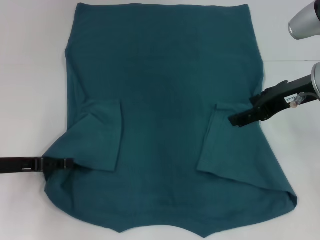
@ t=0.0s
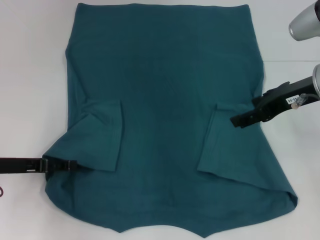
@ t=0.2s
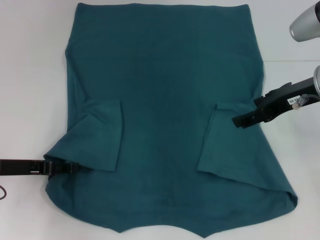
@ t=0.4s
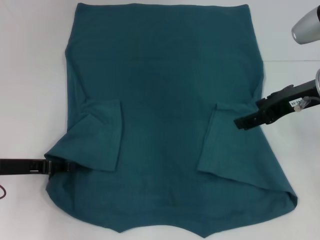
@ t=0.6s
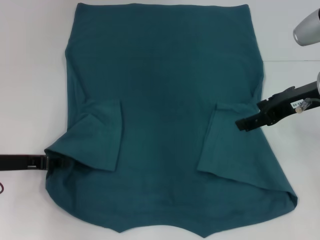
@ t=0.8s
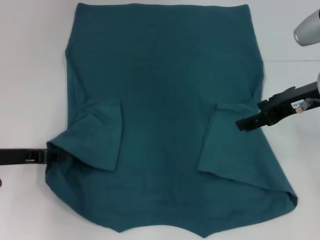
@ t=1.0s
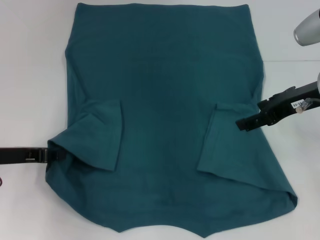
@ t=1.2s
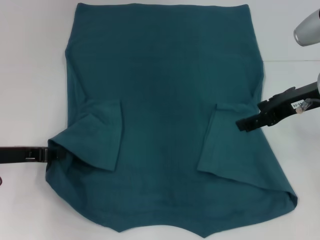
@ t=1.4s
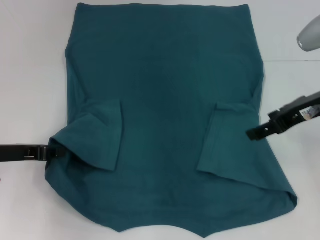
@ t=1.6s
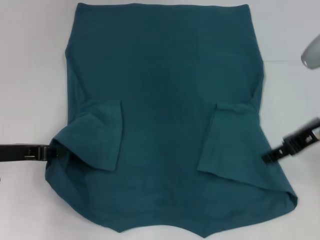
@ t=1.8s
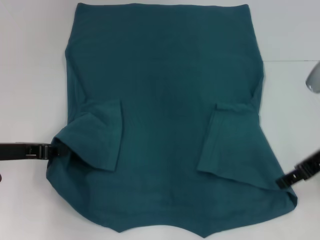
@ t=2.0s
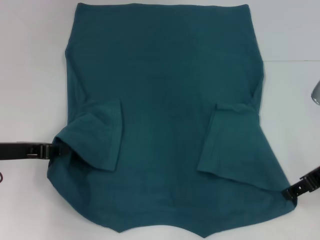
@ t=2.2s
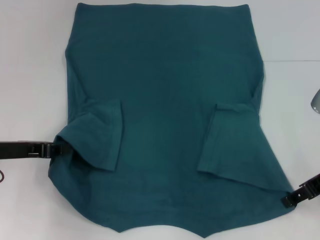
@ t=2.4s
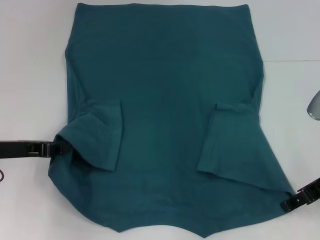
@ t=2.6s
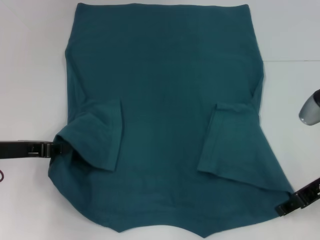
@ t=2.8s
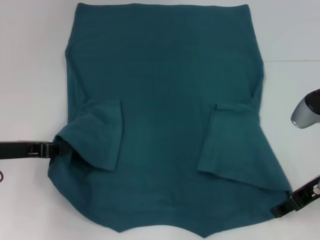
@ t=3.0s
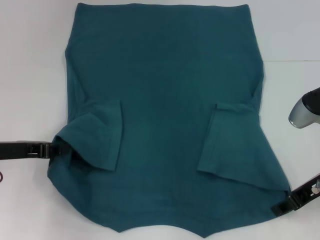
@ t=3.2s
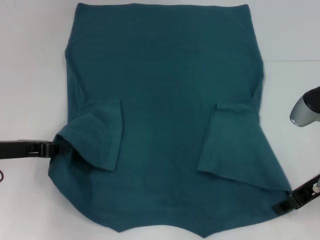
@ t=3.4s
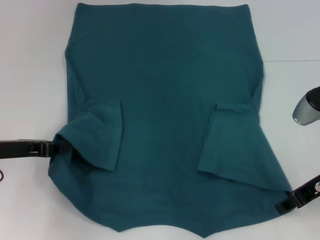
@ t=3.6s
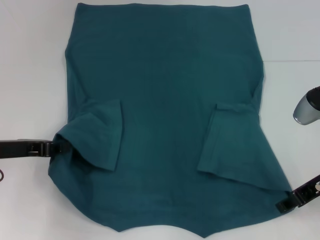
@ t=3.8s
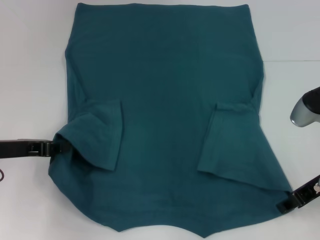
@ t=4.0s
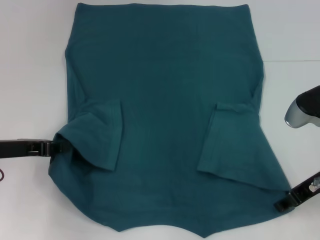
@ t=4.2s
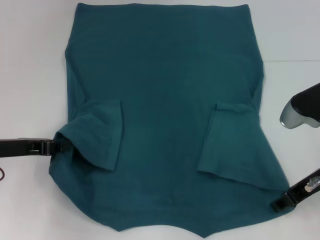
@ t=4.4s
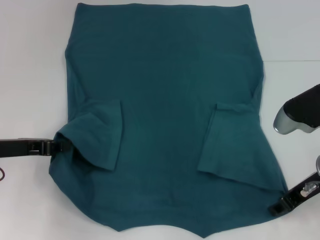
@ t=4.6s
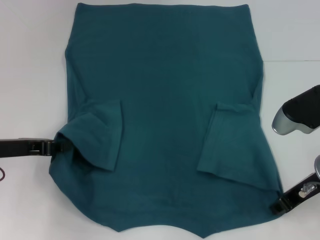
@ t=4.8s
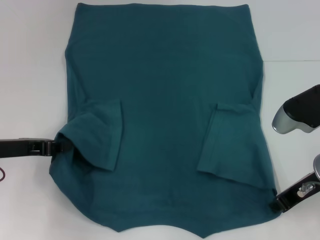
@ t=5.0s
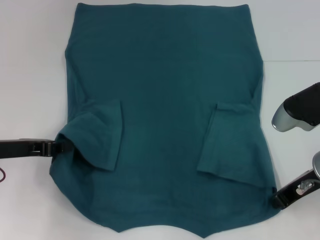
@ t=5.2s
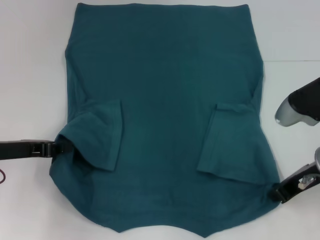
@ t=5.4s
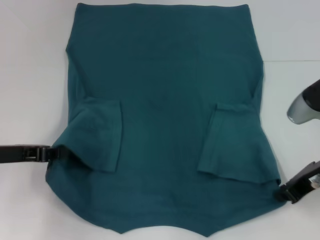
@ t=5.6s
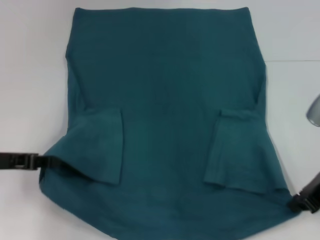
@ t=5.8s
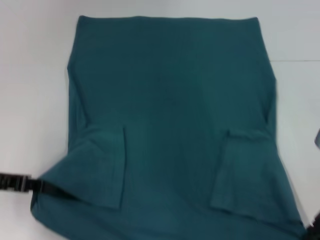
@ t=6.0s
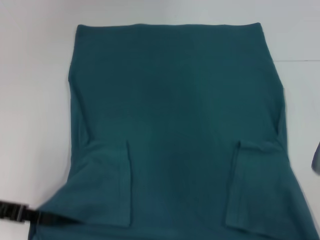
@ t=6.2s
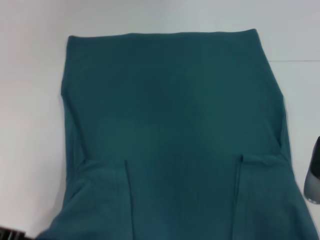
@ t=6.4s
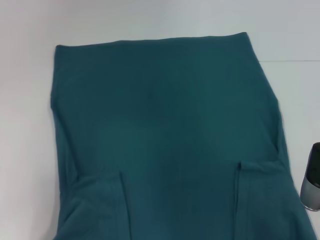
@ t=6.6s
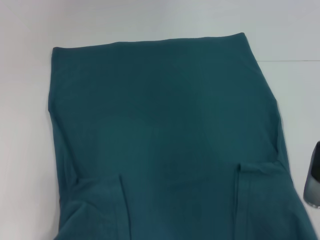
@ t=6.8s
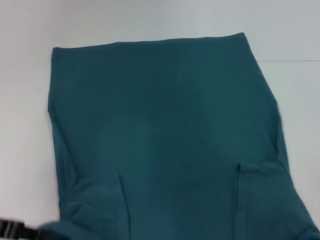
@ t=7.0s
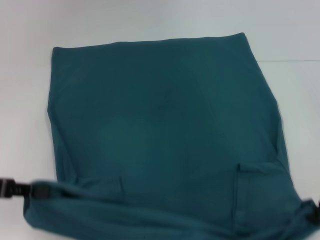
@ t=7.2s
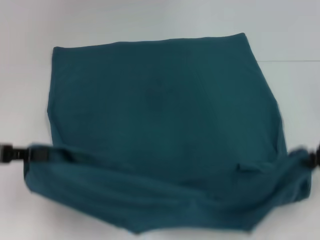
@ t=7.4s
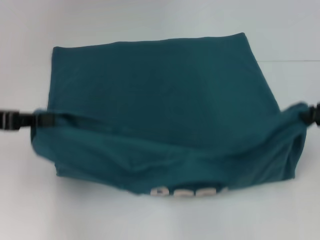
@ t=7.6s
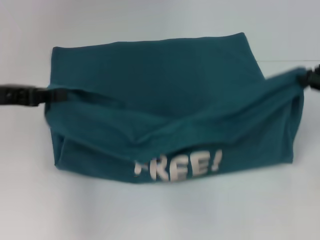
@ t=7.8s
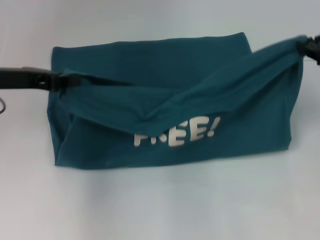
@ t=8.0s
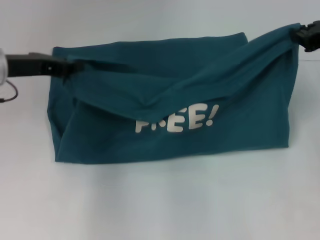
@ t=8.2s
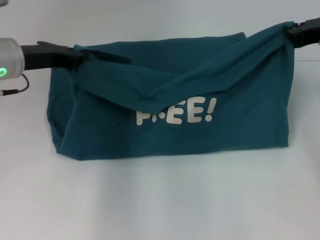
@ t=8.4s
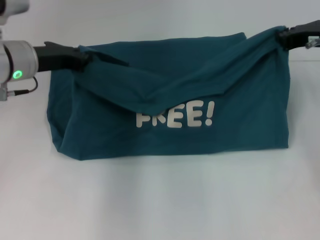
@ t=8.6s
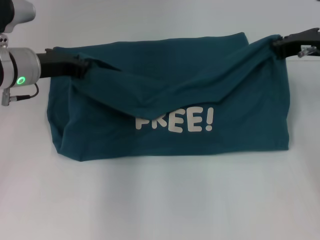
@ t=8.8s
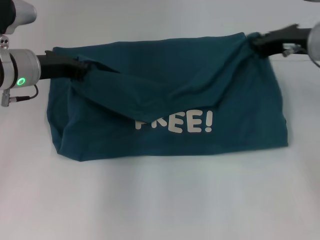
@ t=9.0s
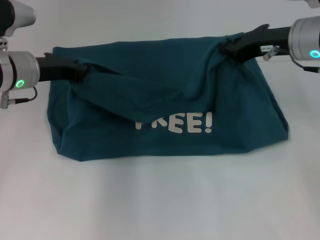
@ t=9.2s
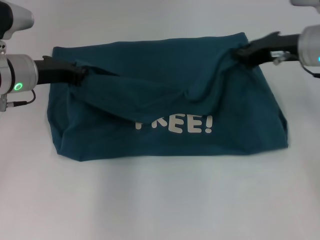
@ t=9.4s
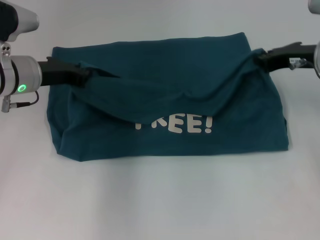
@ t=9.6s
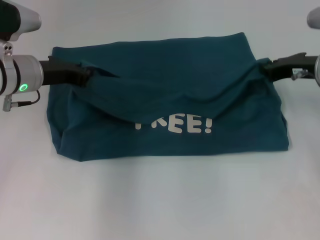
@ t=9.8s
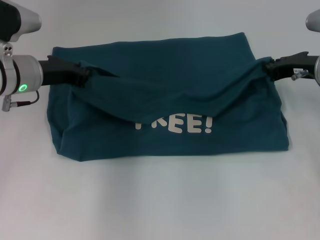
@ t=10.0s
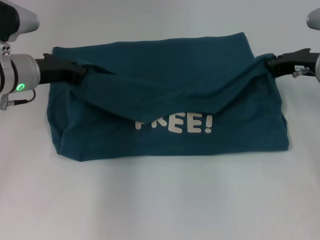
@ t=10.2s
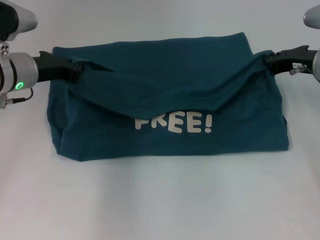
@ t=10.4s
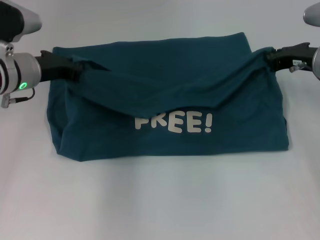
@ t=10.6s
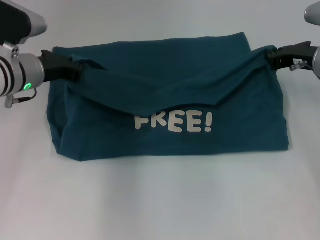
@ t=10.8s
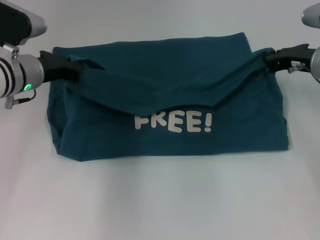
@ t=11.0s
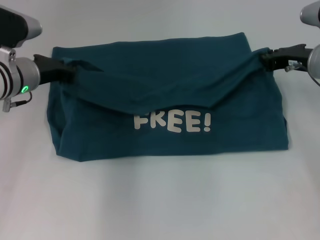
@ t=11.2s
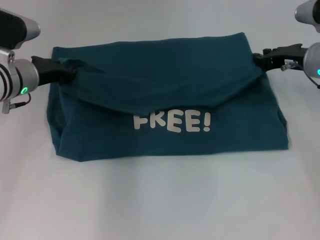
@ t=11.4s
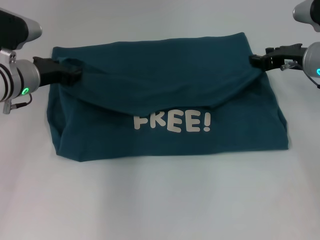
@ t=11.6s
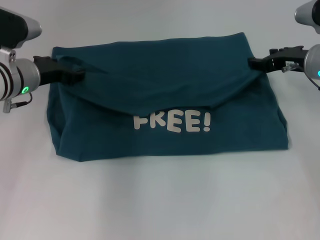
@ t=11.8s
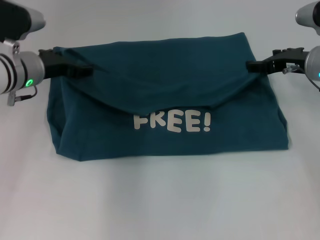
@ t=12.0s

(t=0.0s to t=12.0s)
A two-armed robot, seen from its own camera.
Step, t=0.0s - t=2.0s: Grab the bottom left corner with your left hand.
Step, t=2.2s - t=5.2s: Grab the bottom right corner with your right hand.
t=0.0s - t=1.6s: The left gripper closes.
t=1.6s - t=3.0s: The right gripper shifts some 10 cm downward and backward.
t=3.0s - t=4.4s: The two grippers keep their place.
t=4.4s - t=6.0s: The right gripper closes.
t=6.0s - t=7.6s: The two grippers go some 10 cm upward.
t=7.6s - t=9.0s: The left gripper is displaced forward and to the right by approximately 15 cm, while the right gripper heads forward and to the left, covering roughly 10 cm.
t=9.0s - t=10.4s: The right gripper changes place by some 5 cm.
t=10.4s - t=12.0s: The left gripper opens its fingers. Meanwhile the right gripper opens up.

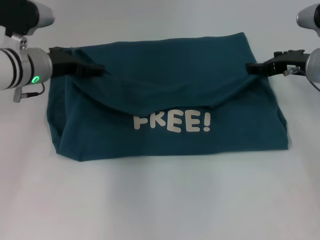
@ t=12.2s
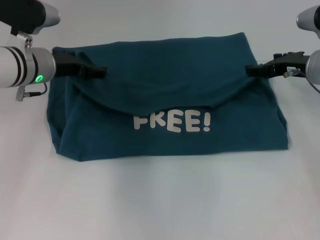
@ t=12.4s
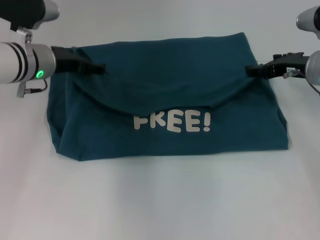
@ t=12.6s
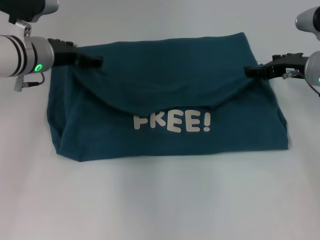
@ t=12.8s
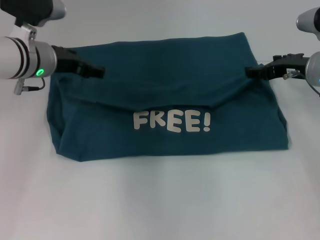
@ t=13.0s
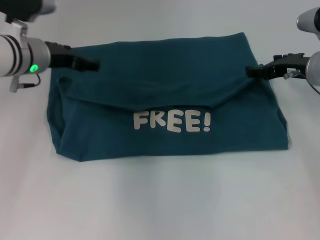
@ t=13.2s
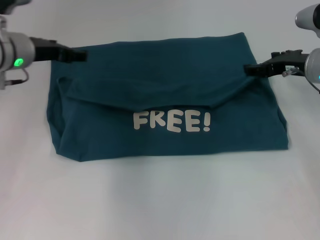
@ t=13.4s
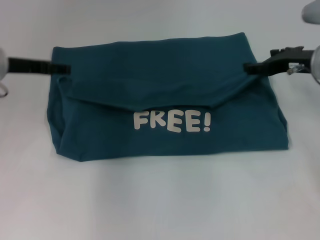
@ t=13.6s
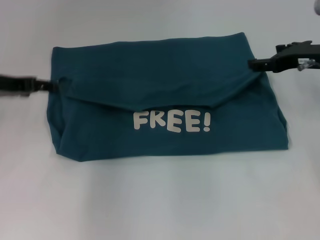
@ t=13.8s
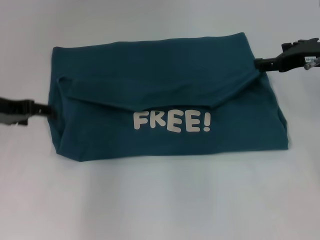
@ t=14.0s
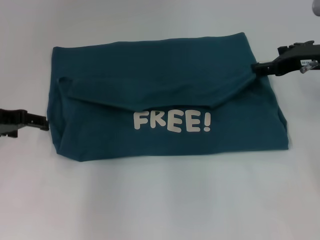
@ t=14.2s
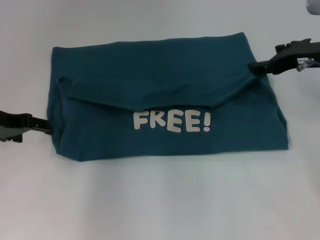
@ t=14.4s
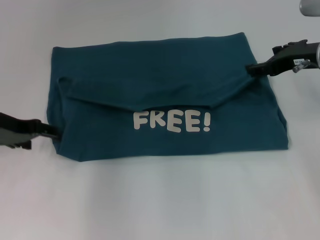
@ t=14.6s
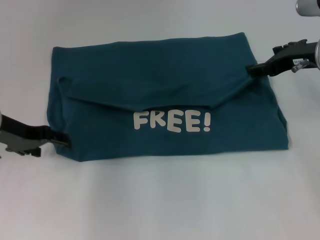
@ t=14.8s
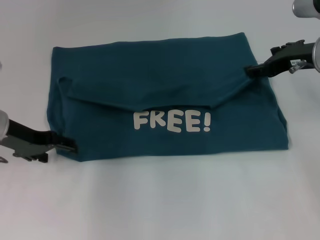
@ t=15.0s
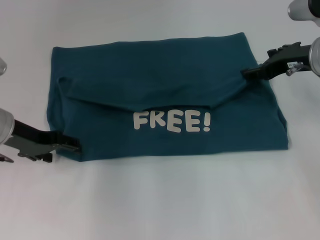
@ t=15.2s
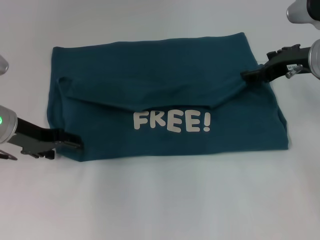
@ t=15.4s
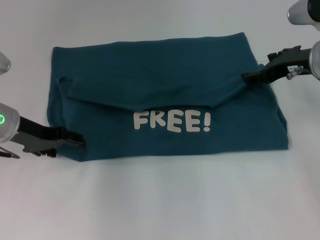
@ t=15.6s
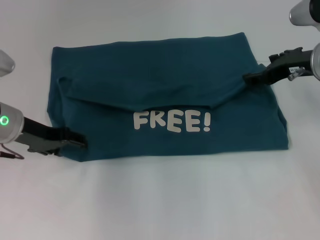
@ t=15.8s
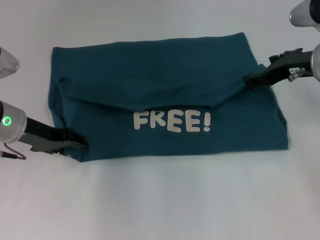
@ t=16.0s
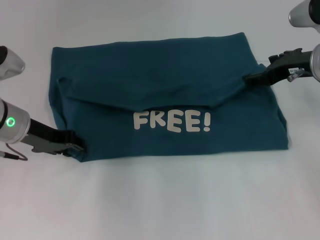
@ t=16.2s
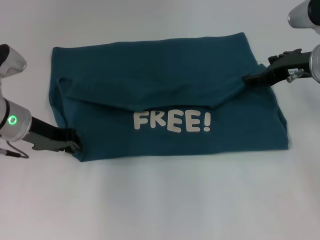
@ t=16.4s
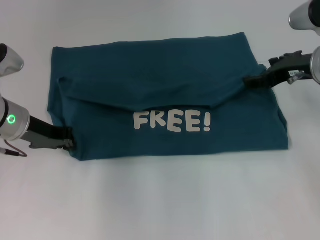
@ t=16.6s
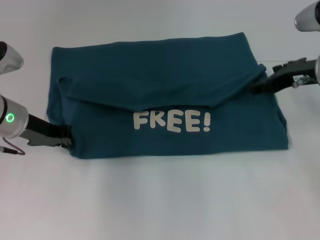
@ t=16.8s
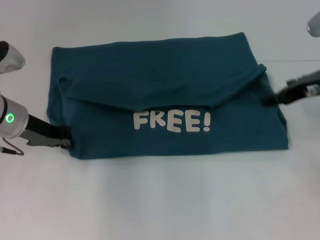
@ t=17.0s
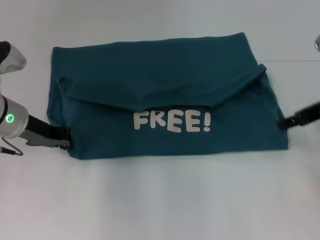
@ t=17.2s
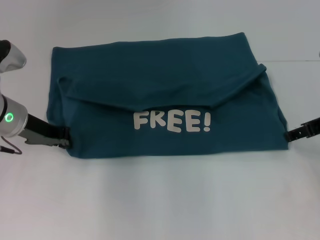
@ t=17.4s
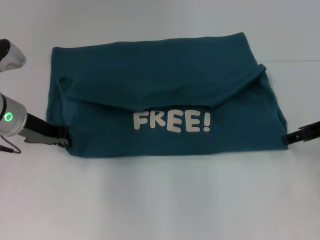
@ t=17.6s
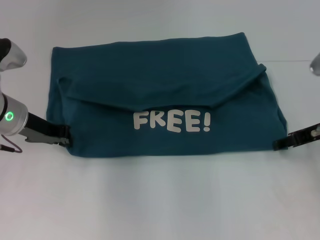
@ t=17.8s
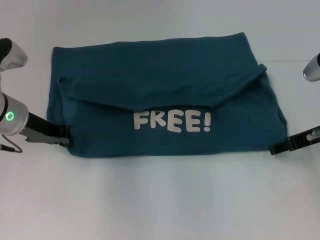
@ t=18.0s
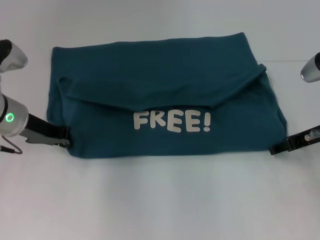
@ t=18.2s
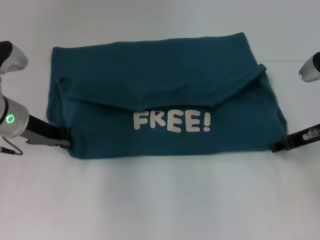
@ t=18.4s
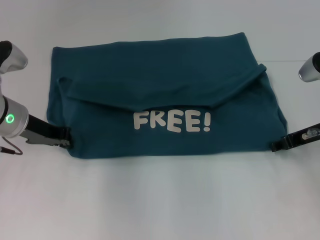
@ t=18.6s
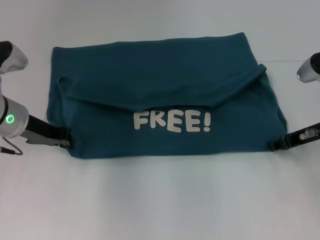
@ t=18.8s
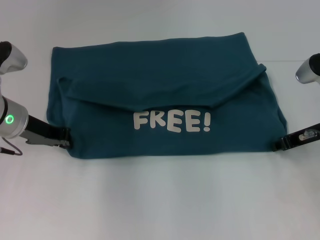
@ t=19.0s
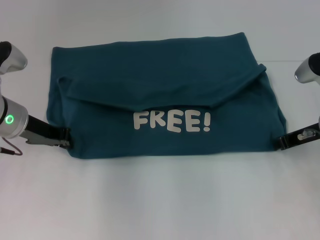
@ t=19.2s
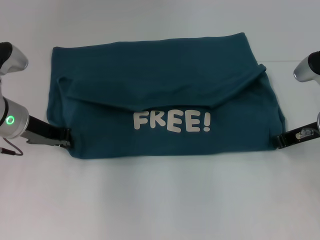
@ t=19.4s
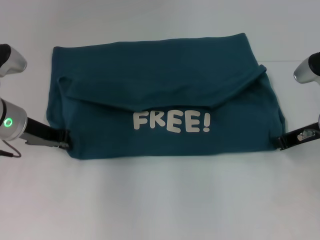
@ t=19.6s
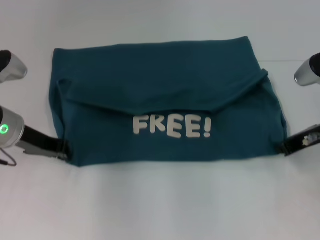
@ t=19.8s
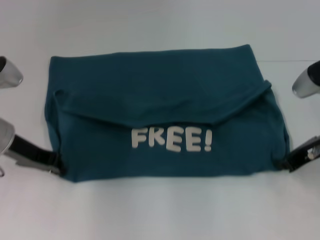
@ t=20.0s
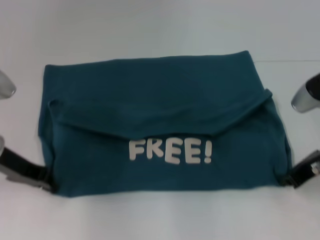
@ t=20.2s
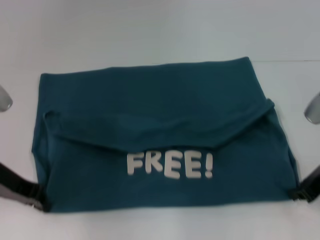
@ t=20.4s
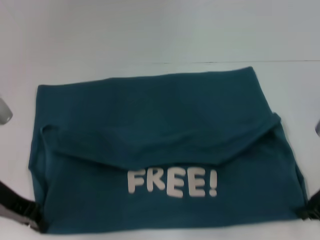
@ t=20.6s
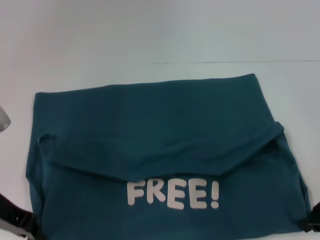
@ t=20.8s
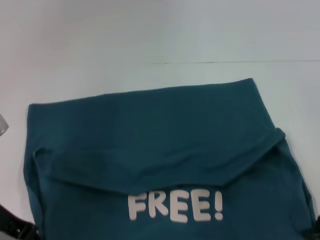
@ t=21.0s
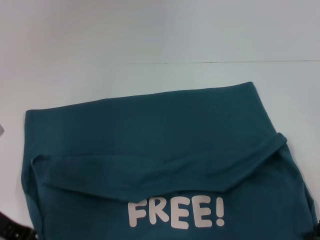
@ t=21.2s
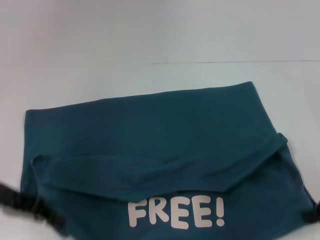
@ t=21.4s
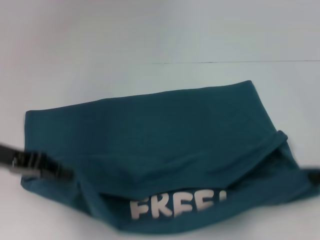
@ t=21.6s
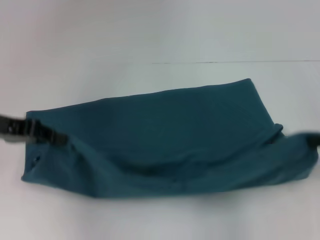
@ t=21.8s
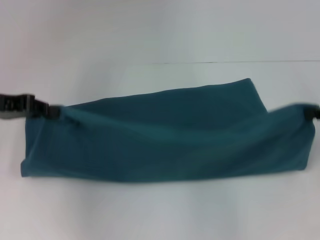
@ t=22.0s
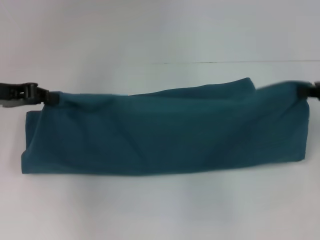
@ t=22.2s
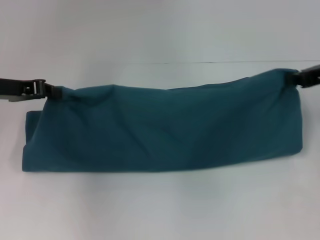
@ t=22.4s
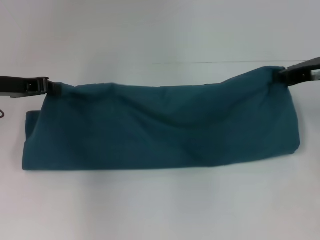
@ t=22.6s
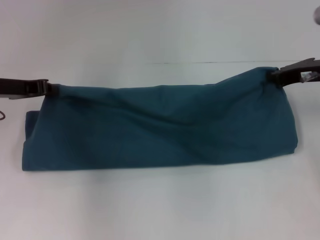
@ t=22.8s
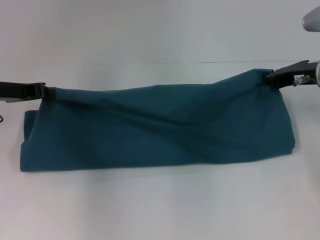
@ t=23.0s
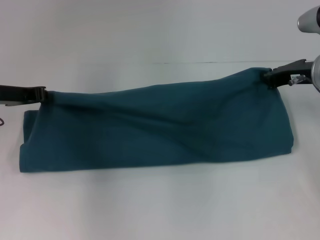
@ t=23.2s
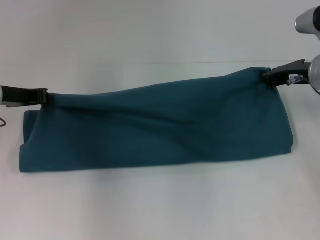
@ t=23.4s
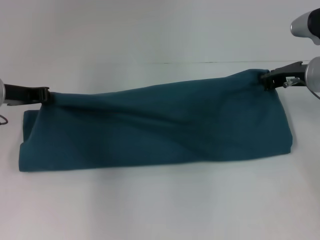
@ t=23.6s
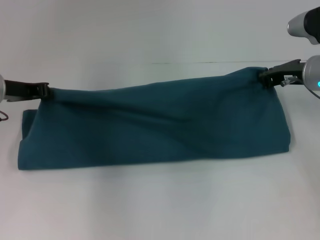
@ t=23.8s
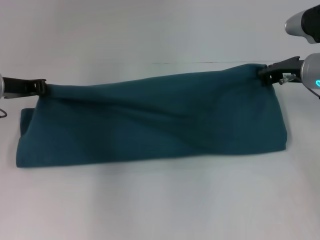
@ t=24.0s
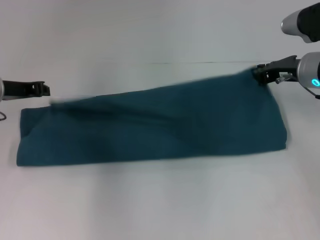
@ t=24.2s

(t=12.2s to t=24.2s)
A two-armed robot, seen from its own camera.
Step, t=13.6s - t=21.0s: Pull the clothes with your left hand.
Step, t=13.6s - t=21.0s: Pull the clothes with your right hand.
t=12.2s - t=13.8s: The left gripper shifts some 10 cm to the left.
t=13.8s - t=15.2s: The left gripper changes place by some 5 cm.
t=15.2s - t=16.6s: The left gripper closes up.
t=16.6s - t=18.2s: The right gripper moves downward, approximately 5 cm.
t=18.2s - t=19.8s: The right gripper closes up.
t=19.8s - t=21.2s: Both grippers move backward, approximately 10 cm.
t=21.2s - t=22.6s: The grippers both shift forward by roughly 10 cm.
t=22.6s - t=24.2s: The right gripper changes place by about 5 cm.
